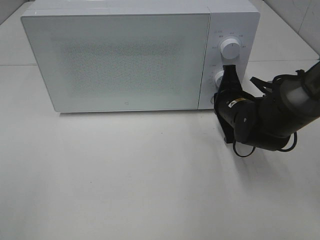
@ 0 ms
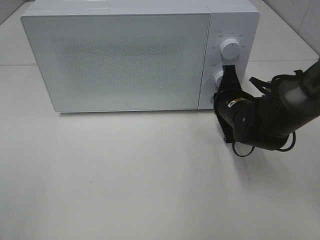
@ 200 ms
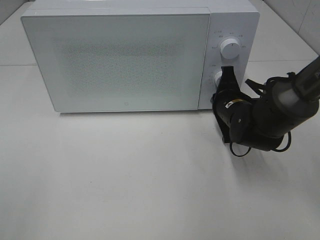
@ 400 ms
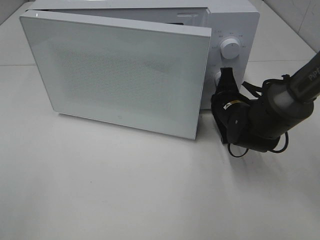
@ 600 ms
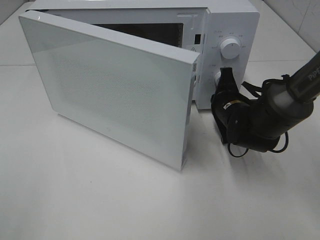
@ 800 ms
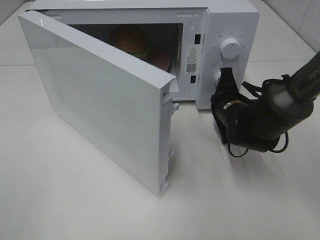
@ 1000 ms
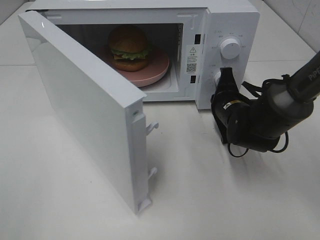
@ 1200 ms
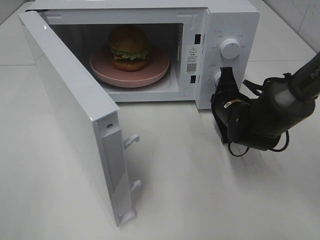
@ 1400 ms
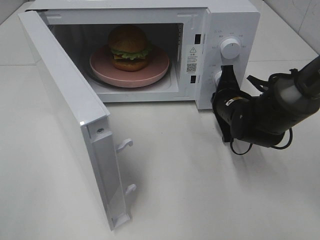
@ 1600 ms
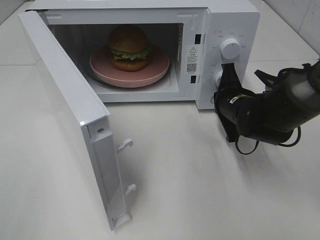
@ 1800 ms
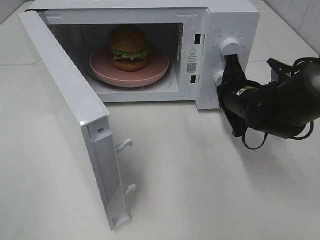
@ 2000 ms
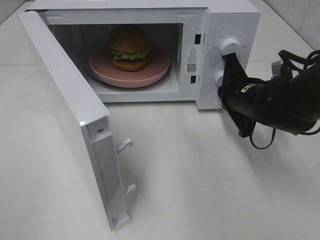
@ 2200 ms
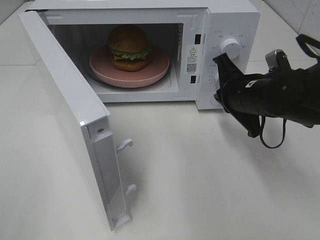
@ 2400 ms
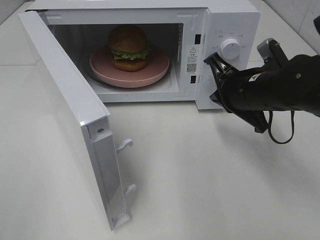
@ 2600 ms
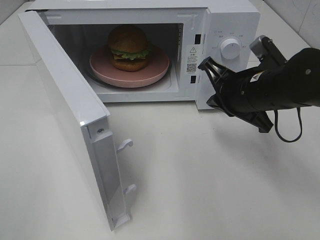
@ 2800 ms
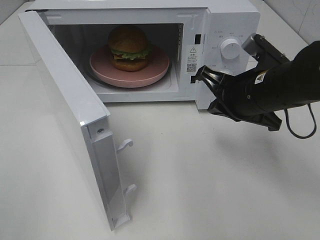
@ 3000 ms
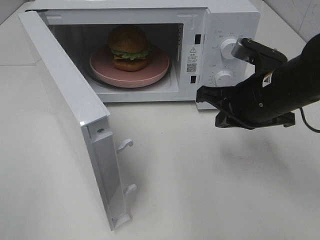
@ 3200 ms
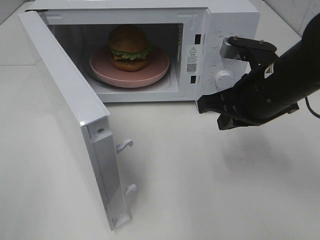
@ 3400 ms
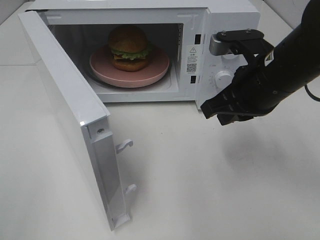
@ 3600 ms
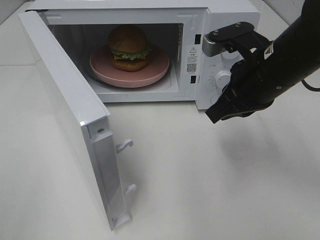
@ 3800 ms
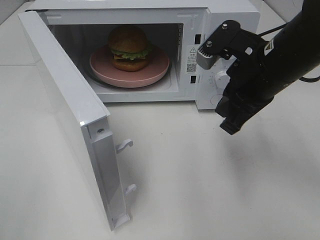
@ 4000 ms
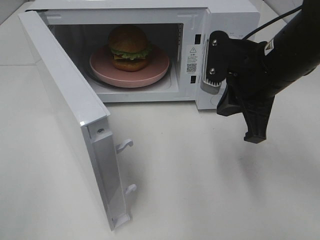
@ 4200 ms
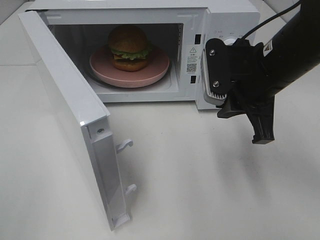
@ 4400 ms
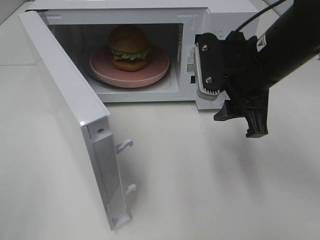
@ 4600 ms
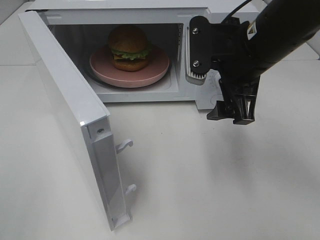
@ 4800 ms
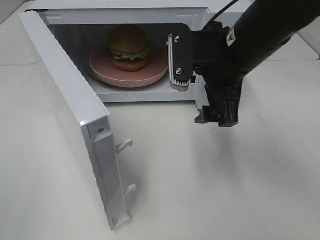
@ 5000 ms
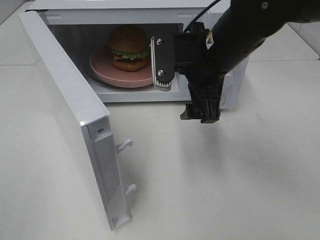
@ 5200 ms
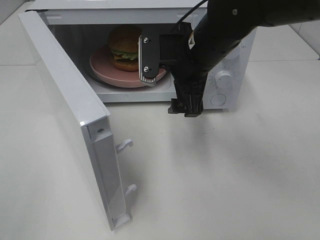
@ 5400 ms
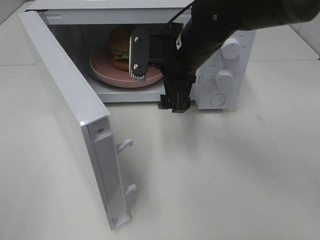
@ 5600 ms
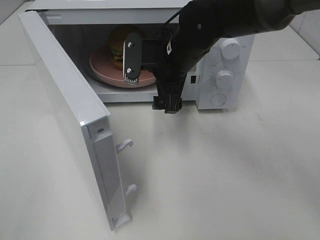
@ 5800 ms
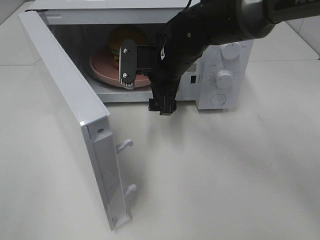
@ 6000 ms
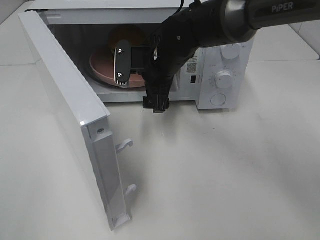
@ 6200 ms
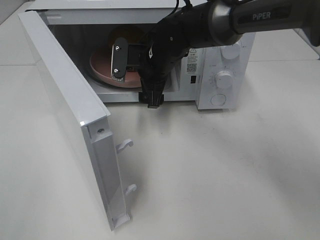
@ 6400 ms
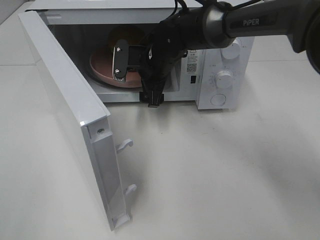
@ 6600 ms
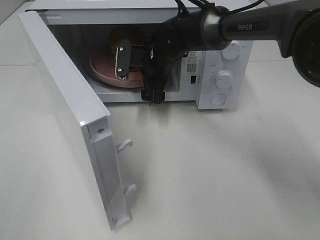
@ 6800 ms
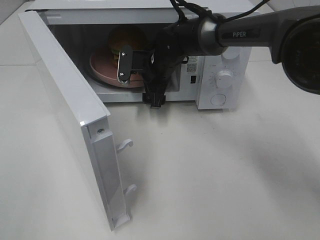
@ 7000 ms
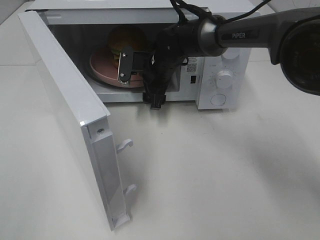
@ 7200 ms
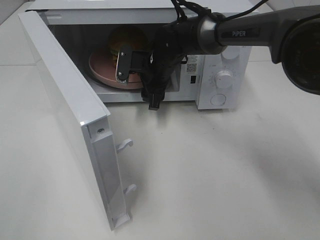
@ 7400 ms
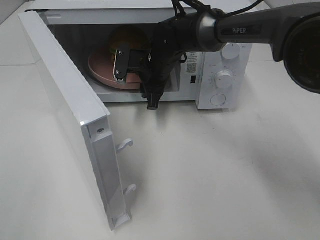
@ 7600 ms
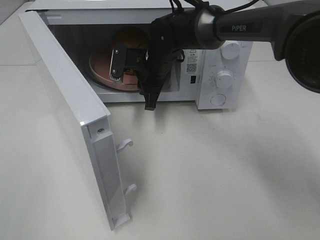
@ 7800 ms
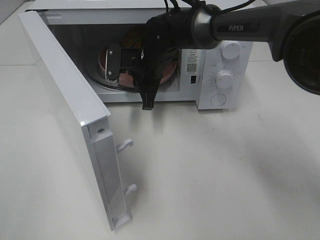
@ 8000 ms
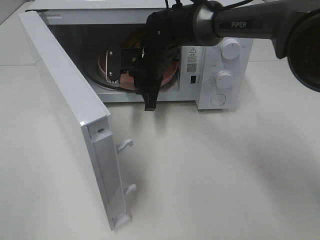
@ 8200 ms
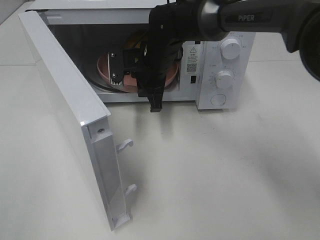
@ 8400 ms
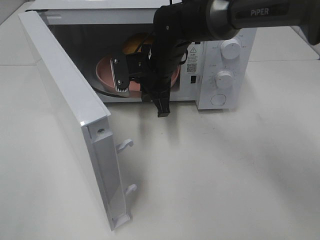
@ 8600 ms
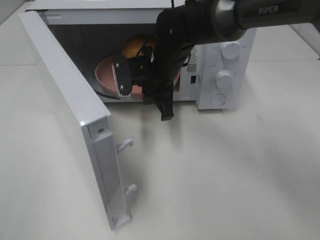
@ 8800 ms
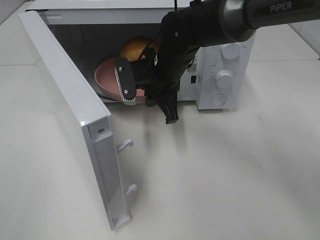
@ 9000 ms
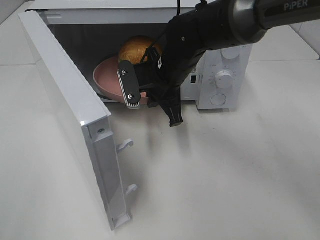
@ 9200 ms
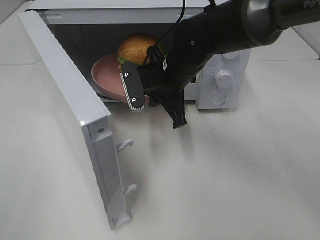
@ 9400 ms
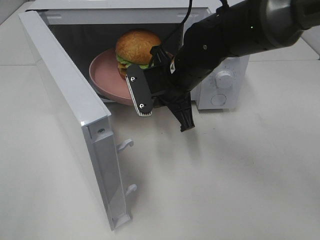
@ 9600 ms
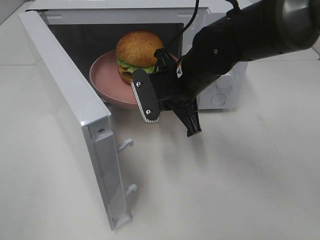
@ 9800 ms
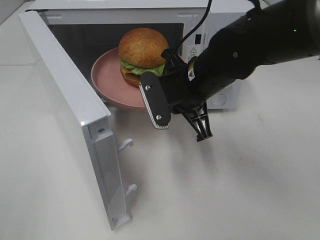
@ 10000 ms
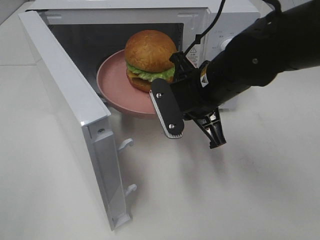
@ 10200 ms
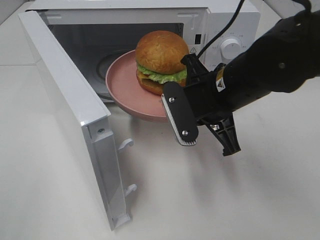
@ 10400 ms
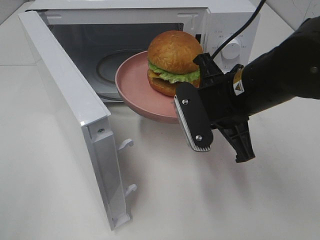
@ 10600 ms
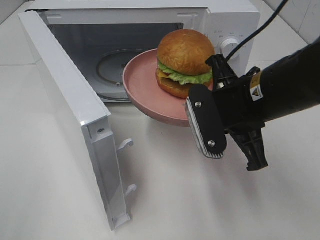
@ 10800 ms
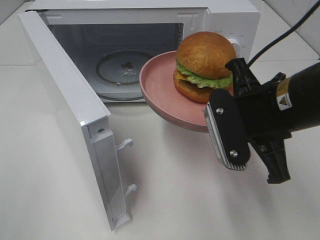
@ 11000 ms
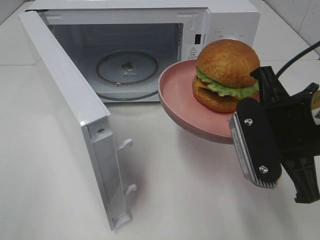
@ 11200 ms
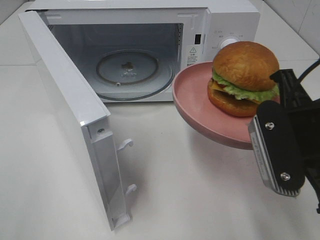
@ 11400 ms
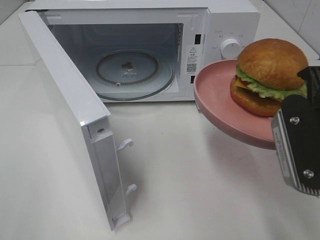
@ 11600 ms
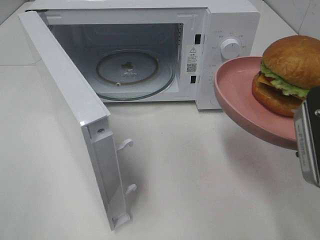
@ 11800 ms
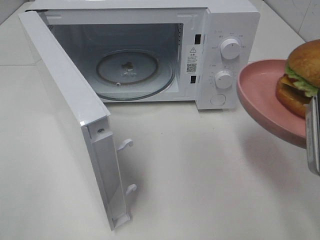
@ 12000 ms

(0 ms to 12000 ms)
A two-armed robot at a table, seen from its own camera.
Task of the whole recording: Heat the burger.
Step, 0 ms - 2000 ms: Right hand: press the switch.
Step, 2200 ms - 7800 ms: Right hand: grab the plate with the hamburger.
1600 ms - 3000 ms: The right gripper shifts about 10 cm upward and backward.
3000 ms - 4400 ms: The right gripper ends up about 5 cm from where it was.
4400 ms - 6000 ms: The right gripper travels to the left, forward and downward by some 15 cm, and opens its fingers.
6000 ms - 7600 ms: The right gripper moves forward, approximately 5 cm, and closes its fingers.
7600 ms - 9000 ms: The right gripper is displaced backward by about 5 cm, and closes up.
9000 ms - 10400 ms: The right gripper goes some 15 cm backward and to the right.
10400 ms - 12000 ms: The right gripper shifts roughly 20 cm backward, to the right and upward.

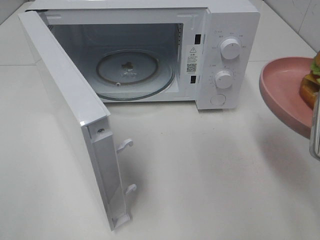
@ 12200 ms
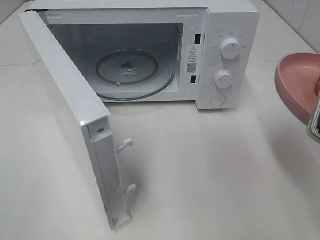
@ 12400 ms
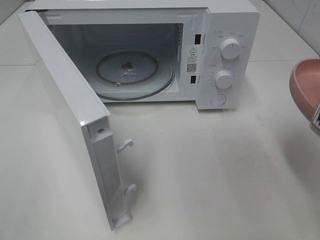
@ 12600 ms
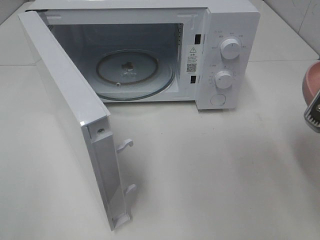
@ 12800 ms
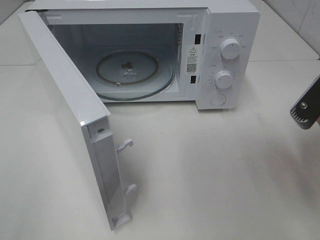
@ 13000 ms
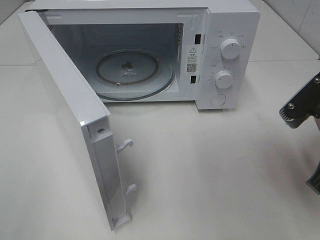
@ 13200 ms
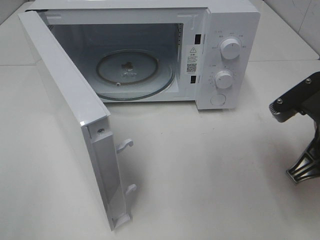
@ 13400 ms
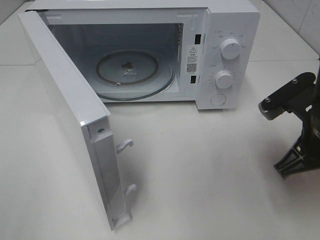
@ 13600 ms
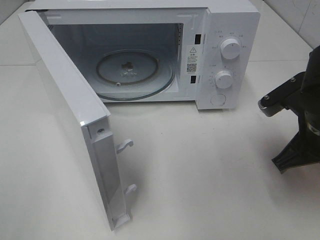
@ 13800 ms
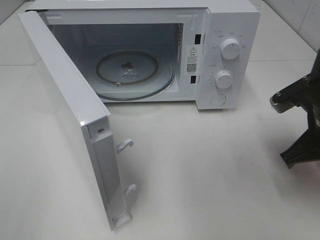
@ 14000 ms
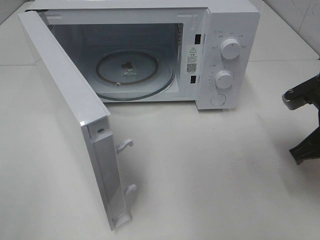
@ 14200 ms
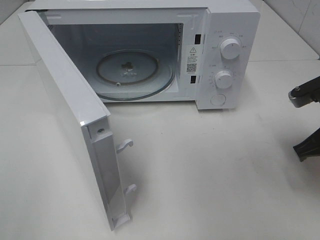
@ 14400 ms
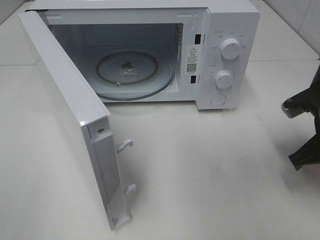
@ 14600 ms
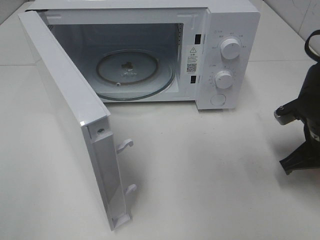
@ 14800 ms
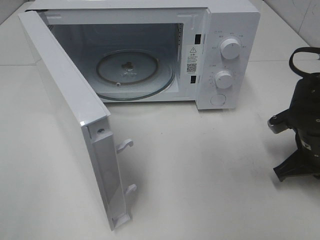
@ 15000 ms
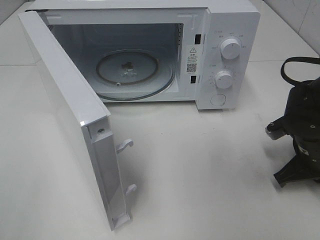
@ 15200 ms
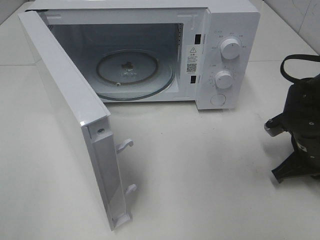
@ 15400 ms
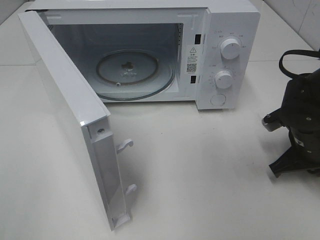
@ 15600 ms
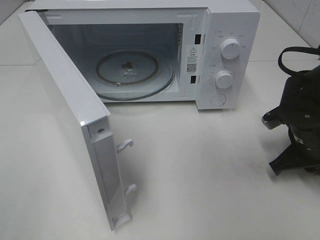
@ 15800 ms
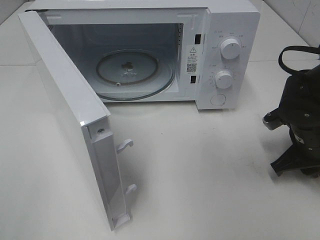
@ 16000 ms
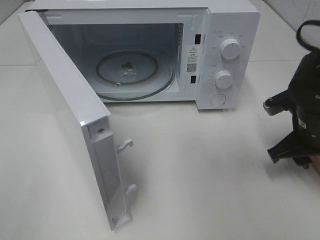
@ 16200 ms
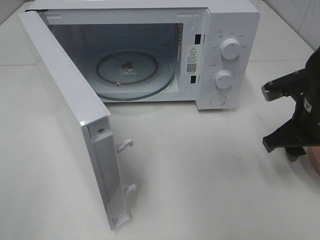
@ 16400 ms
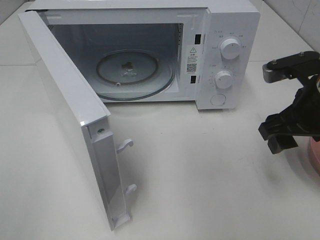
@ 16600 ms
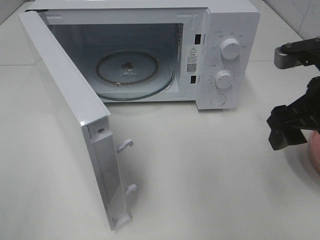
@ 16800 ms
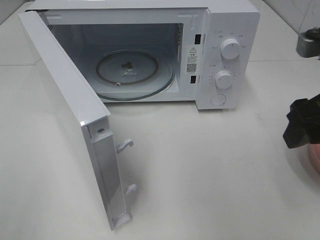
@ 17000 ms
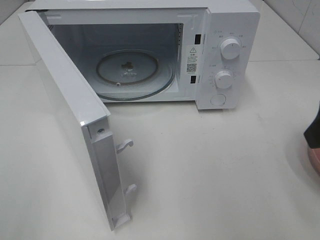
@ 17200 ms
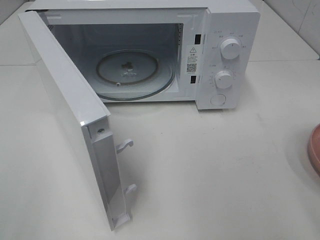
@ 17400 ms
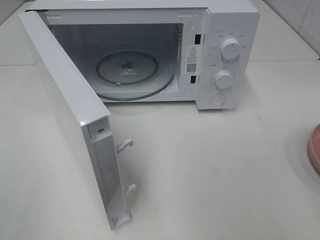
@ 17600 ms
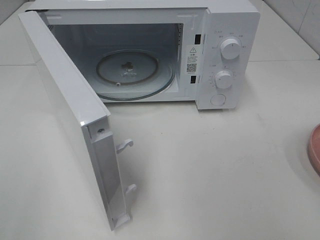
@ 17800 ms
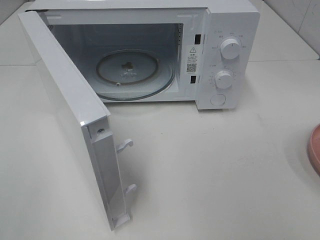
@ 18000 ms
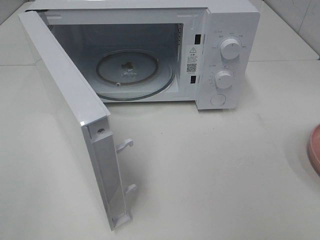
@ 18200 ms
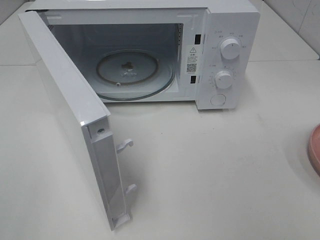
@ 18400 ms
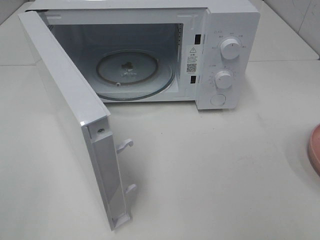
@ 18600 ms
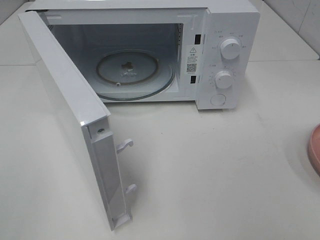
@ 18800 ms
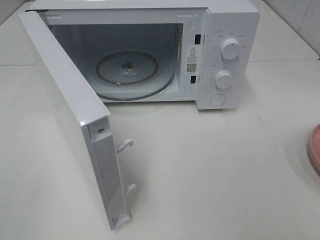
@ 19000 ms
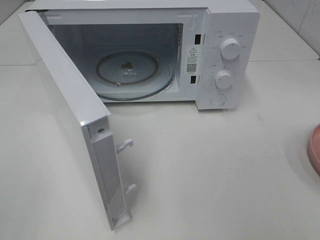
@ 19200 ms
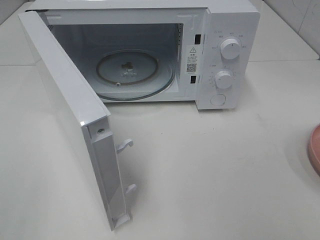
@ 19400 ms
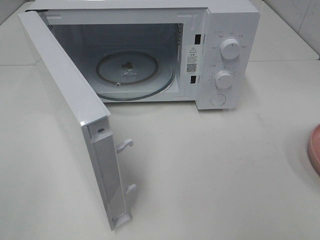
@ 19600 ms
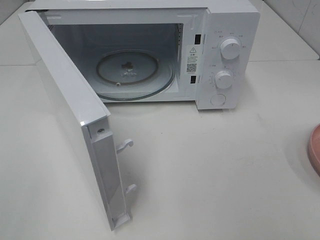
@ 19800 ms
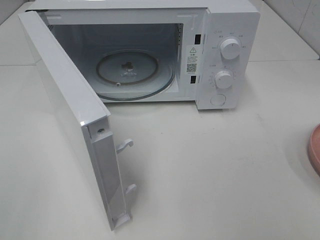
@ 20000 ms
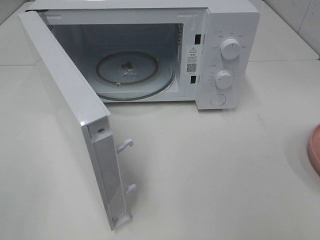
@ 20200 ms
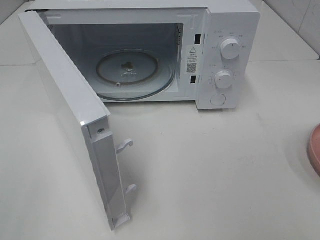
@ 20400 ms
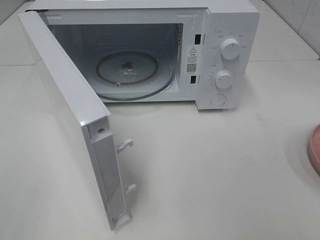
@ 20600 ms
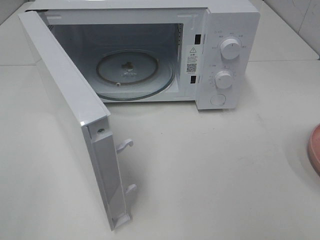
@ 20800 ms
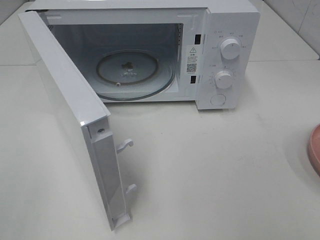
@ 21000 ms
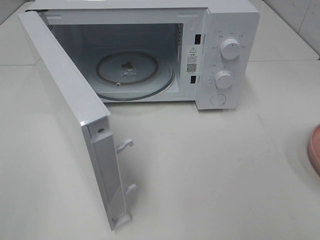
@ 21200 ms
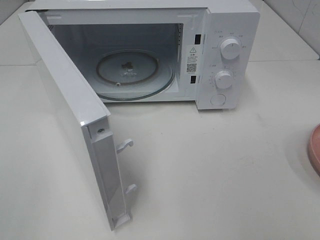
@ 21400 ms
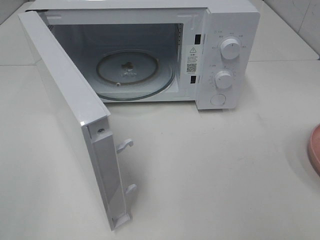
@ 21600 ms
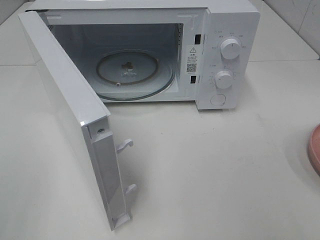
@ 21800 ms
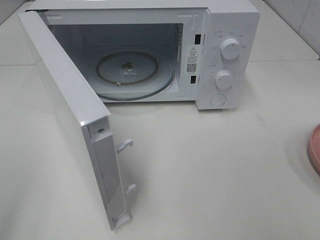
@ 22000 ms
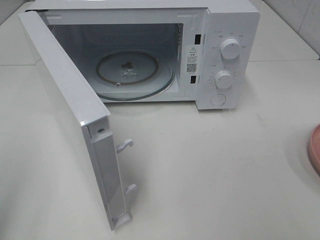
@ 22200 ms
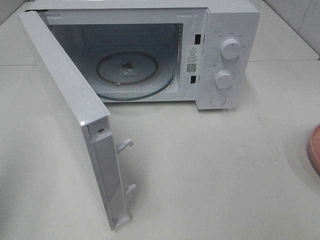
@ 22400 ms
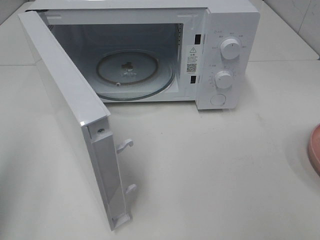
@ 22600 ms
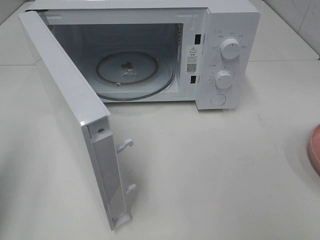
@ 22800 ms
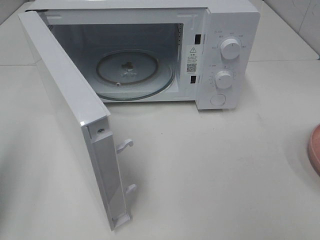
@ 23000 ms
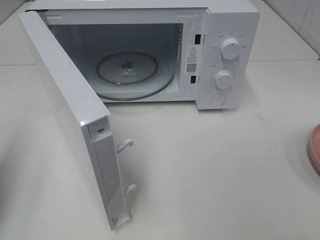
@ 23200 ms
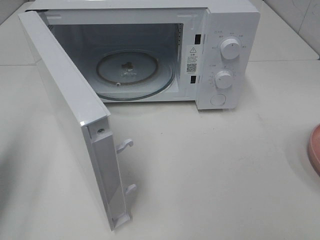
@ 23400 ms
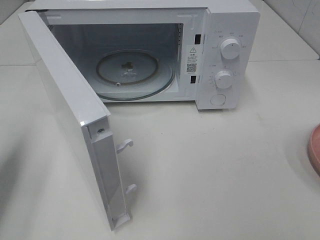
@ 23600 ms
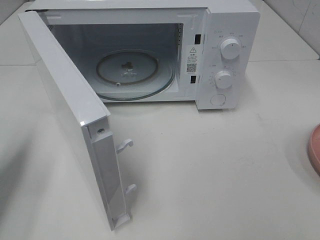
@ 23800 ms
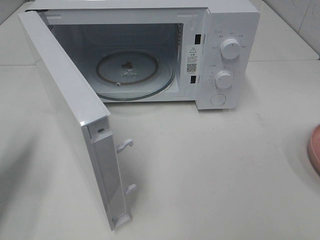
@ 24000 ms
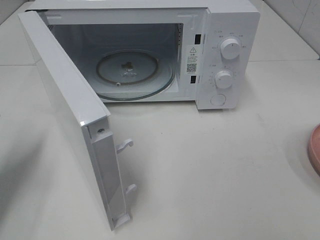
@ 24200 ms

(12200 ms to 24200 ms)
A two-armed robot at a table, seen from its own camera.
Task of the whole recording: Heat the burger.
Step, 12200 ms - 15800 ms: Right hand: place the plate on the table.
12200 ms - 13800 ms: The right gripper shifts about 10 cm forward and downward.
13800 ms - 15200 ms: The right gripper moves downward, roughly 10 cm.
15200 ms - 16600 ms: The right gripper shifts some 10 cm upward, and opens.
16600 ms - 18200 ms: The right gripper goes roughly 25 cm backward and upward.
19800 ms - 21200 ms: Both grippers stay put.
21200 ms - 22600 ms: The left gripper shifts about 10 cm forward, and closes.
22600 ms - 24200 ms: The left gripper travels downward and forward by roughly 15 cm.
